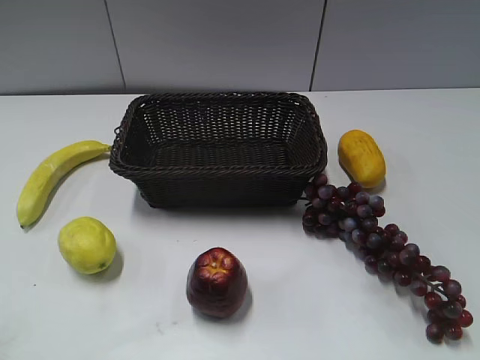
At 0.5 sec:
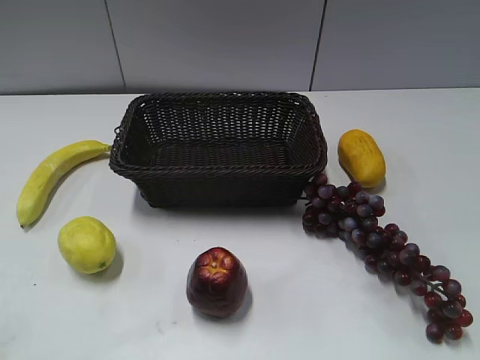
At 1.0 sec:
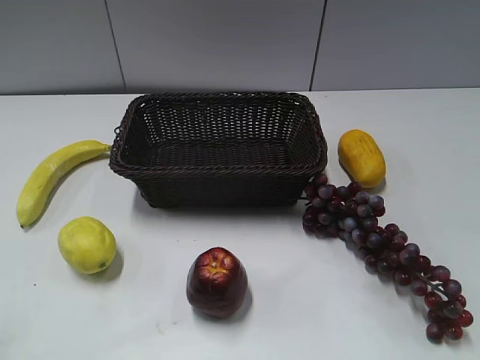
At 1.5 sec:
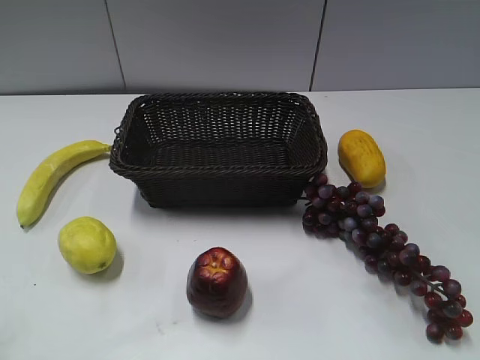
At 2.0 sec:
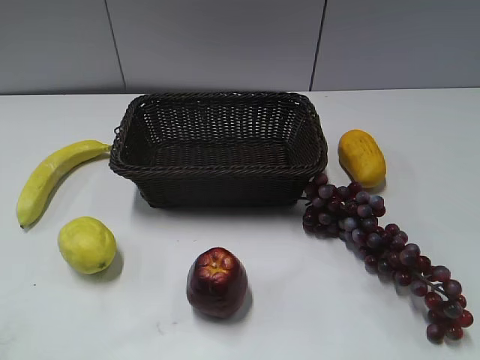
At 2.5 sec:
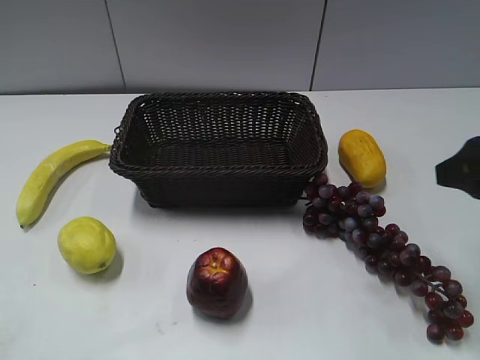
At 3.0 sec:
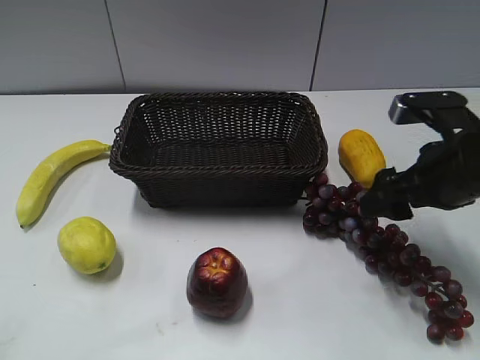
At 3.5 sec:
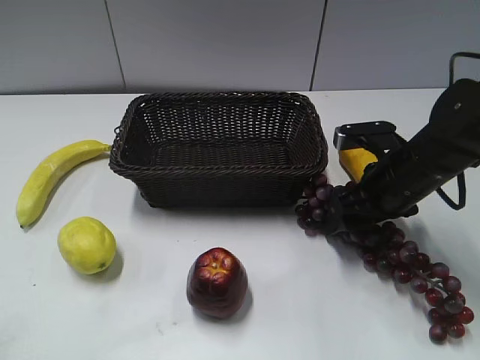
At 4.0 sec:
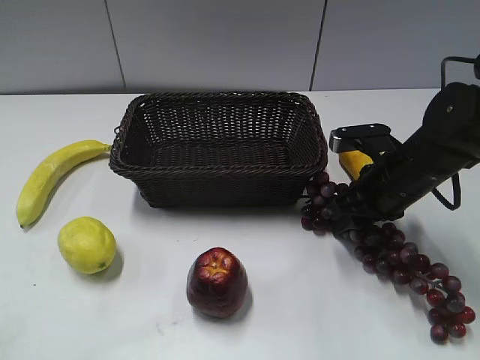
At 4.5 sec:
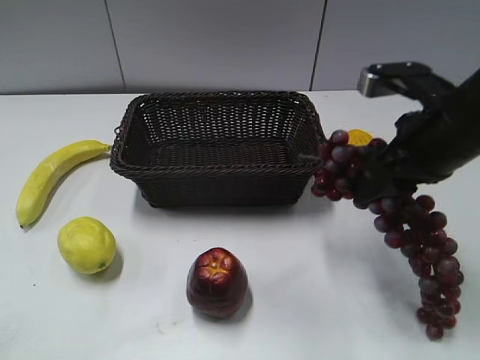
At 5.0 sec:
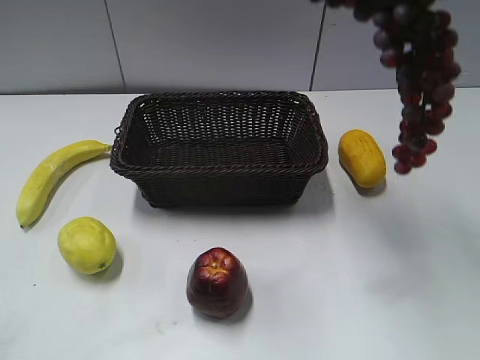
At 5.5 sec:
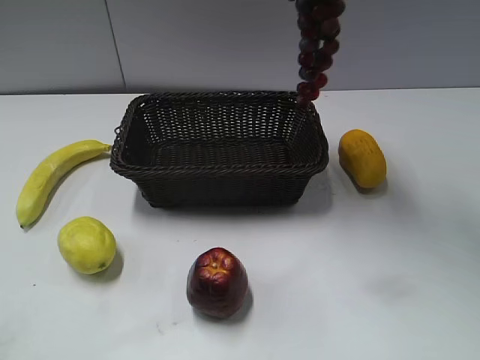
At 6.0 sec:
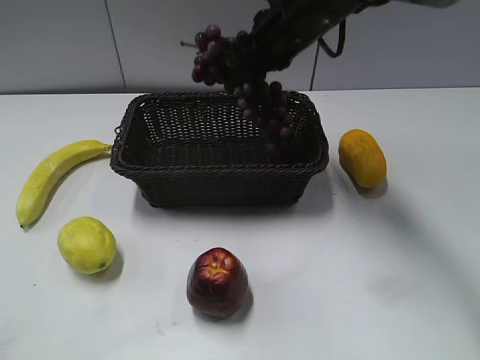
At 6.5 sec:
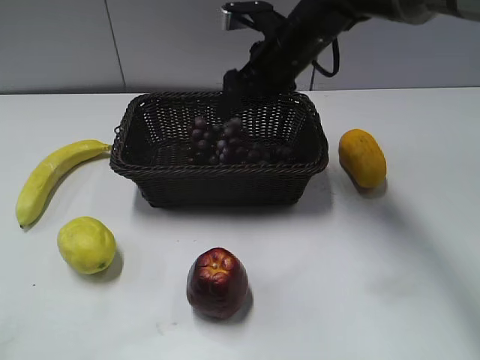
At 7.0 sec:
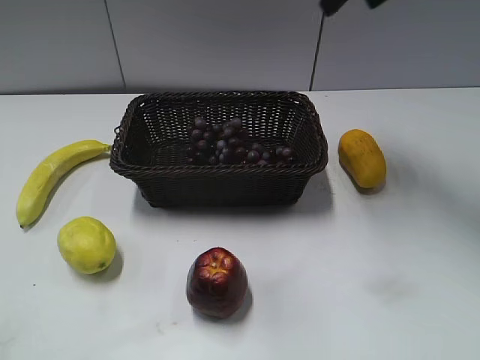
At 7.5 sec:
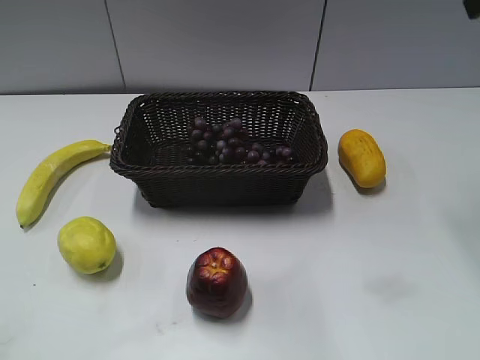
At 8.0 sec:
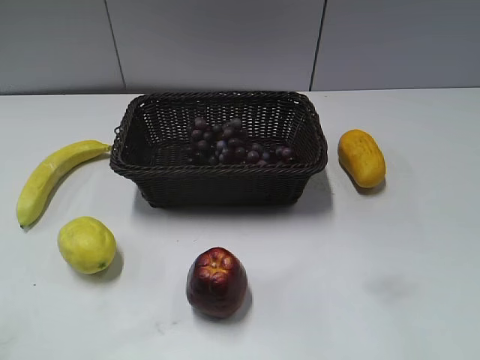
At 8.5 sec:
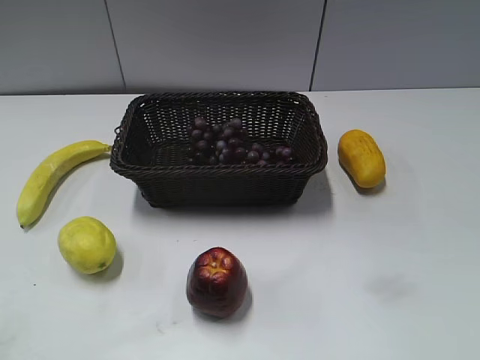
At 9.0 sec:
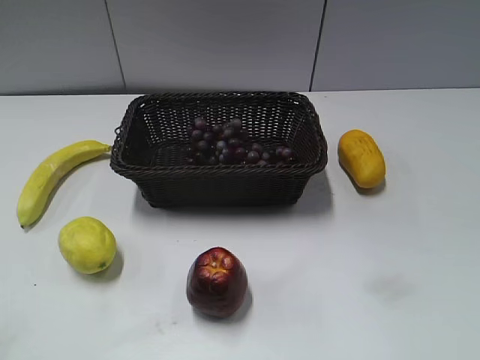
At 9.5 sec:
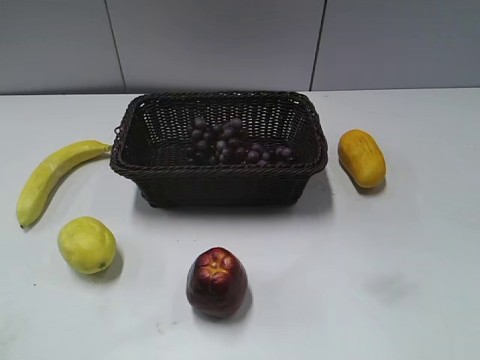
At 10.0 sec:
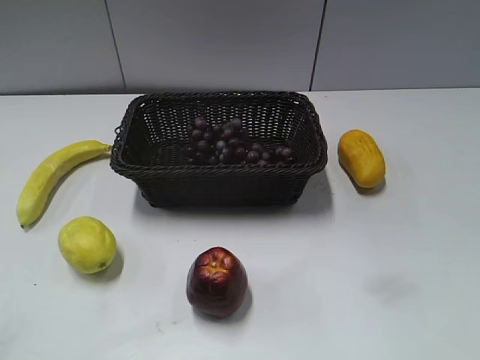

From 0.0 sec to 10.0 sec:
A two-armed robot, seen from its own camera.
Step, from 2.5 sec to 3.5 sec: Grasp the grape with right gripper.
Step, from 4.5 sec to 6.0 sec: Place the grape in the basket with right gripper.
From 2.0 sec to 4.0 sec: The right gripper moves forward, downward and to the left, approximately 30 cm, and closes up.
From 4.0 sec to 6.0 sec: The right gripper is displaced to the left, forward and upward by approximately 20 cm.
From 6.0 sec to 8.0 sec: The right gripper moves backward, to the right and upward, some 40 cm, and opens.
